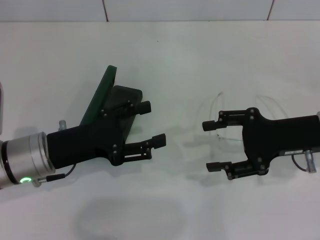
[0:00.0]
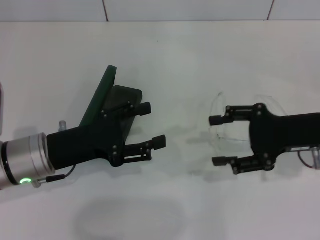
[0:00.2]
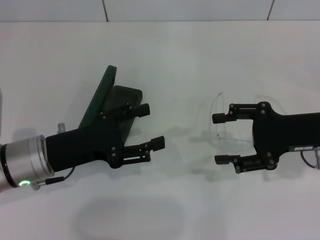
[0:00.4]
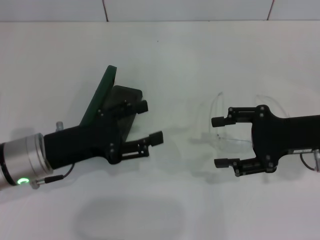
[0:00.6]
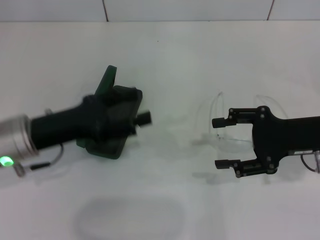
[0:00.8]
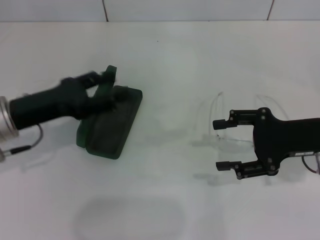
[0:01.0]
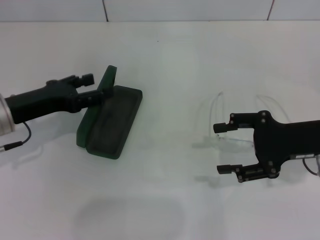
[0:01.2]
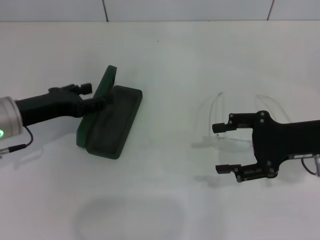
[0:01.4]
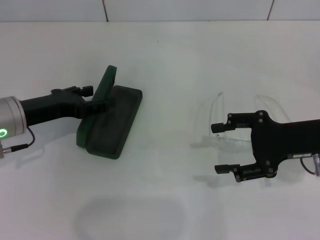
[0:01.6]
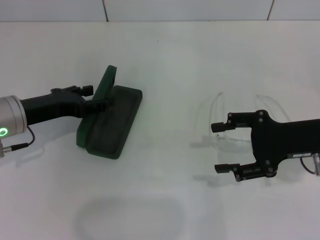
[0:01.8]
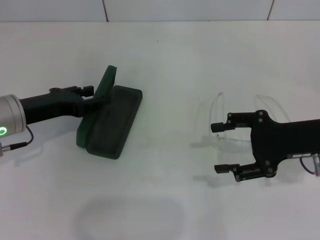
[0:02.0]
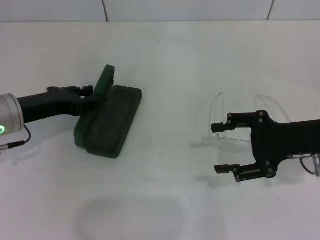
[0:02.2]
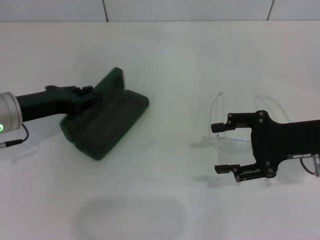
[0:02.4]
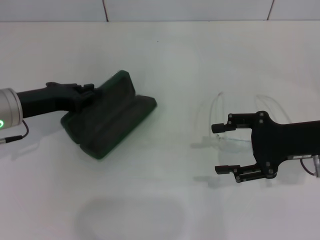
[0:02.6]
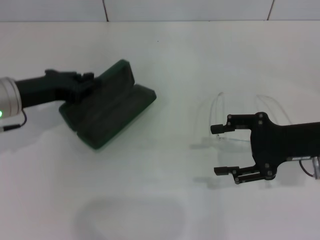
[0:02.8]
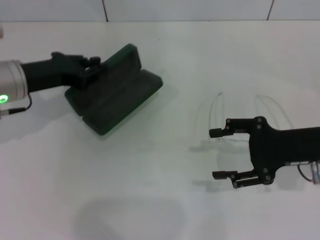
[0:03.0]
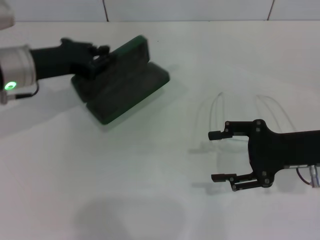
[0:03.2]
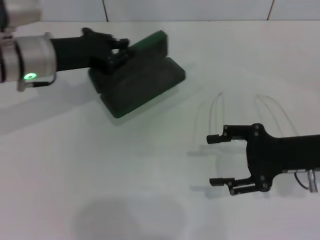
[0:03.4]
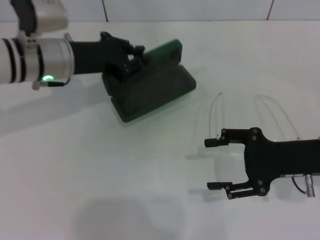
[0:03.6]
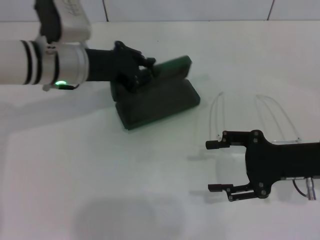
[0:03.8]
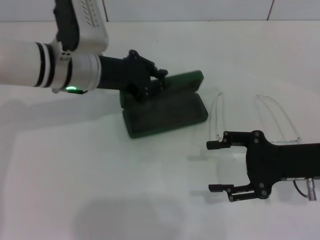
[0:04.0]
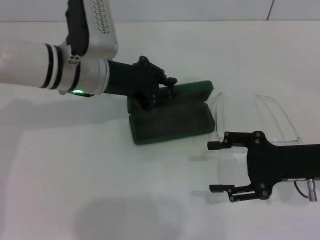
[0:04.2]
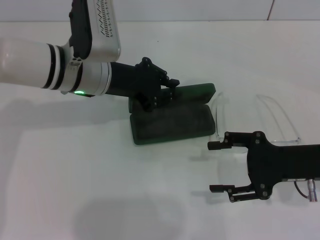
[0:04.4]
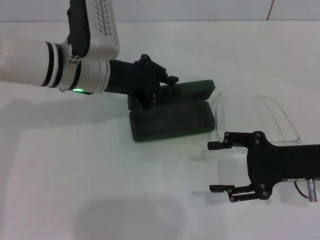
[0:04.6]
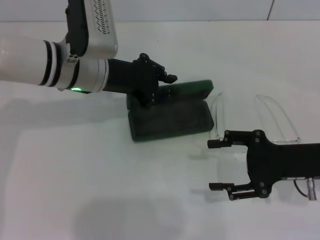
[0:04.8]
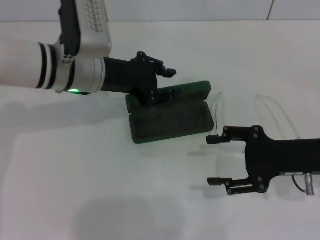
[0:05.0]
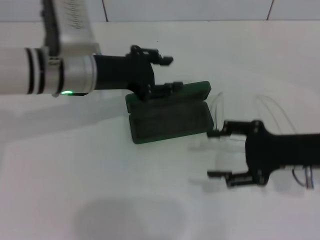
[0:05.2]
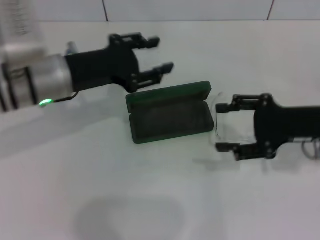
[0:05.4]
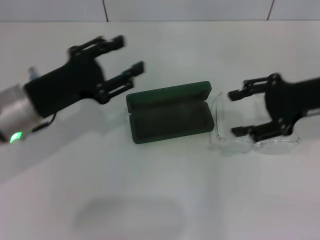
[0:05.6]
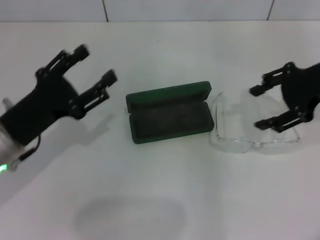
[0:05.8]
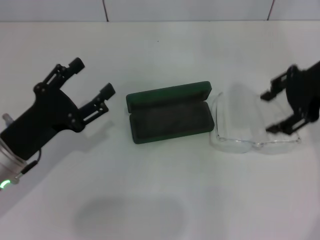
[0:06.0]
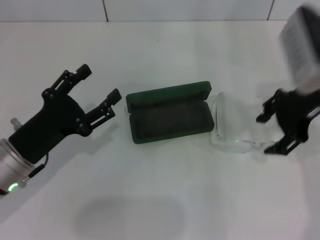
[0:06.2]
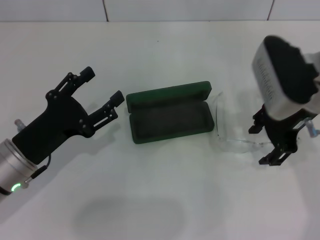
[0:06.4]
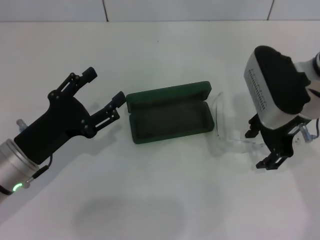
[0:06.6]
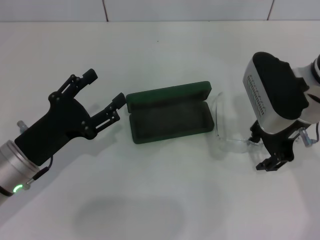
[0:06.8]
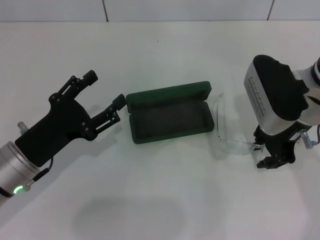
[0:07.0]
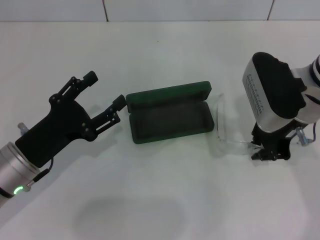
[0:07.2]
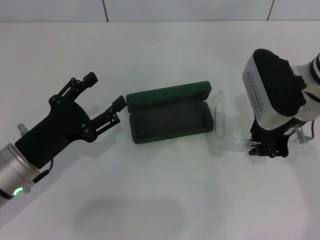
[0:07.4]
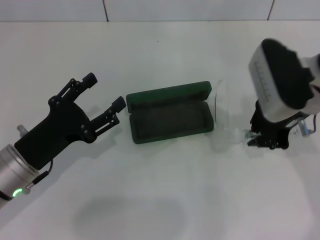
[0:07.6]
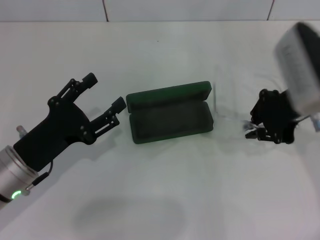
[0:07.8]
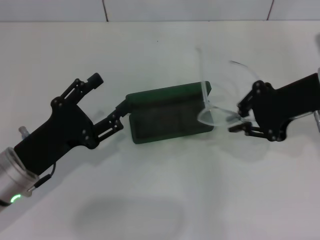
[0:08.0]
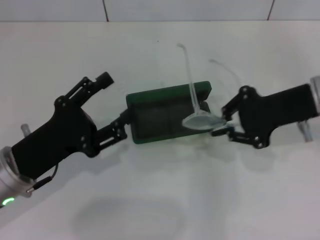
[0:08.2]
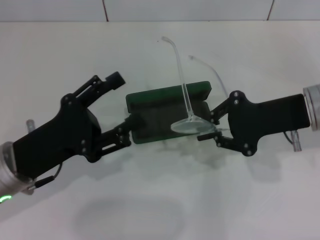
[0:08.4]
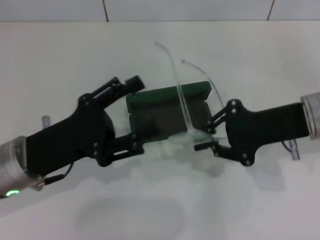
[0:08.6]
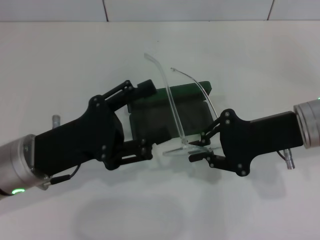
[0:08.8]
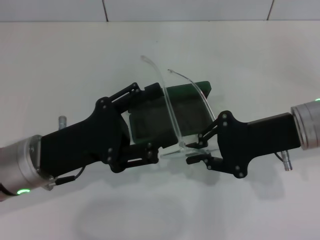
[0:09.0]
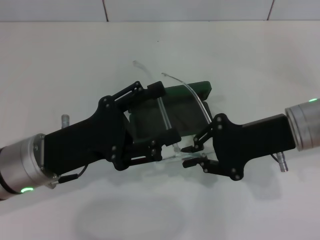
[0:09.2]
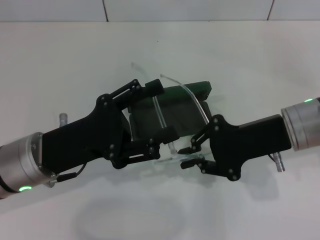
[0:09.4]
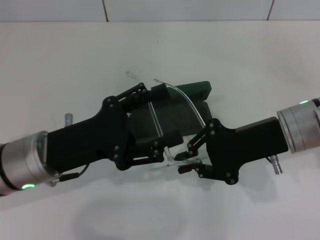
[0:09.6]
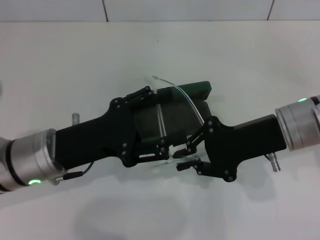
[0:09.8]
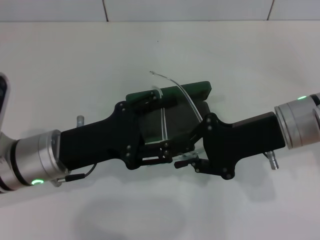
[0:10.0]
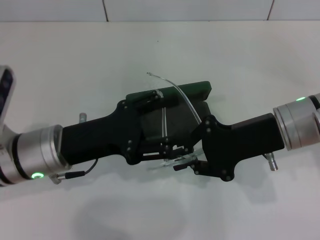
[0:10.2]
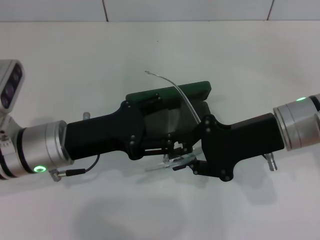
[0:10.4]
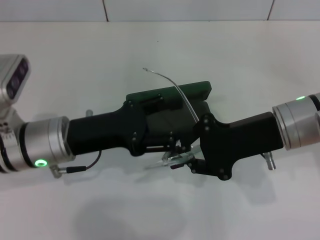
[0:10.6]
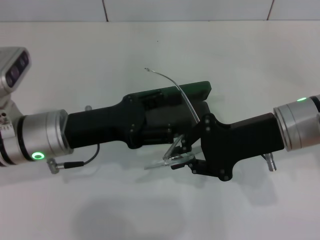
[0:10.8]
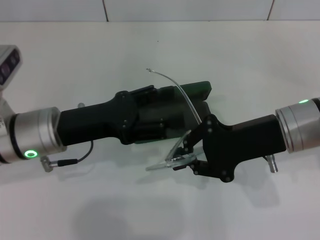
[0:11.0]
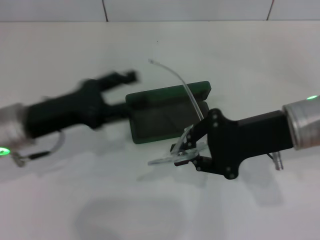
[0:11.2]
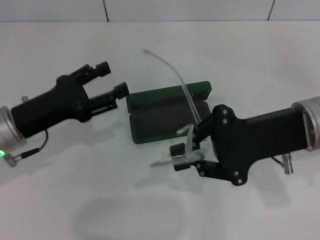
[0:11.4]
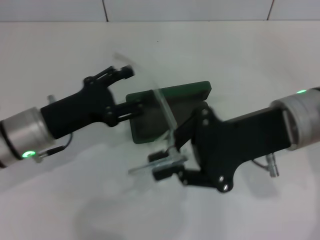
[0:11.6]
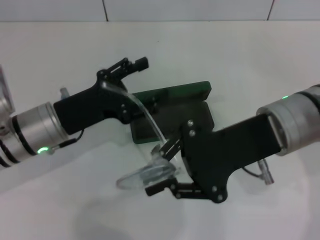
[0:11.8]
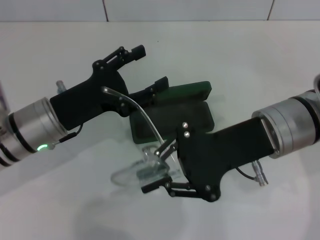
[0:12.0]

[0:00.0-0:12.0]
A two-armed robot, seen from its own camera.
Step, 0:00.0 to 0:02.4: Grab the glasses case with your left hand.
Step, 0:02.6 to 0:04.8: Place the glasses case in the center of the table with your left hand.
Step, 0:05.0 to 0:07.2: Grab the eyeglass frame with your right hand.
0:00.0 to 0:01.6: The left gripper shifts some 5 cm forward.
0:01.6 to 0:03.0: The left gripper moves roughly 5 cm, and closes its fingers.
0:03.0 to 0:04.4: The left gripper goes roughly 10 cm to the right.
0:04.4 to 0:06.0: The right gripper moves upward and forward, about 15 cm. Meanwhile the left gripper is displaced backward, to the left and downward by approximately 20 cm, and opens up.
0:06.0 to 0:07.6: The right gripper goes some 10 cm to the left and downward, and closes.
0:07.6 to 0:09.0: The left gripper moves roughly 5 cm, while the right gripper shifts by some 5 cm.
0:09.0 to 0:10.4: The grippers move only a little.

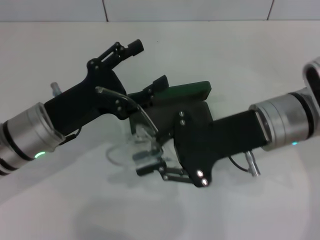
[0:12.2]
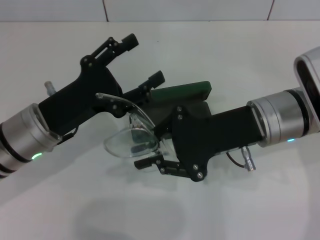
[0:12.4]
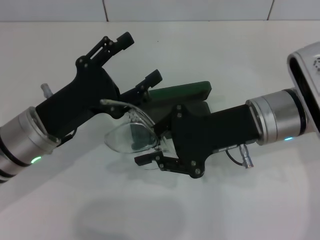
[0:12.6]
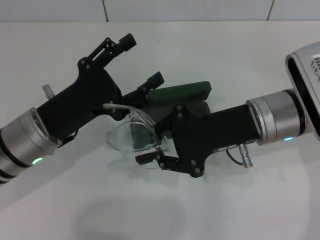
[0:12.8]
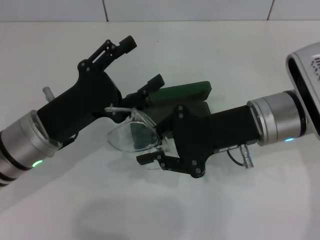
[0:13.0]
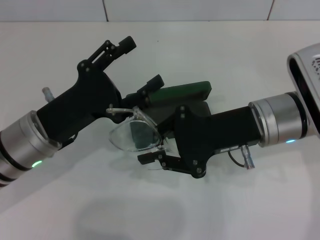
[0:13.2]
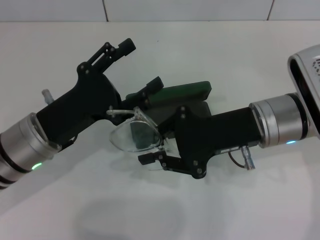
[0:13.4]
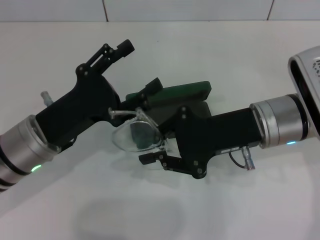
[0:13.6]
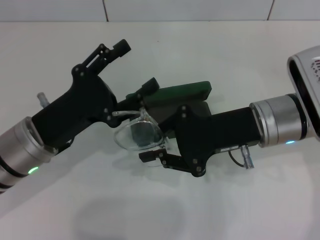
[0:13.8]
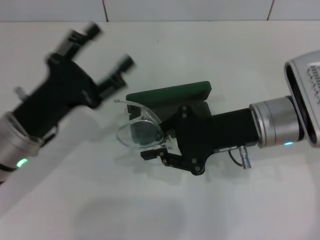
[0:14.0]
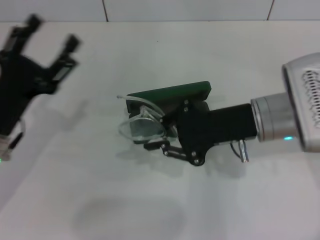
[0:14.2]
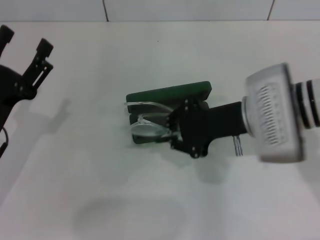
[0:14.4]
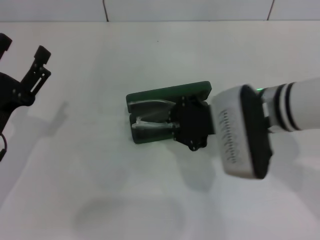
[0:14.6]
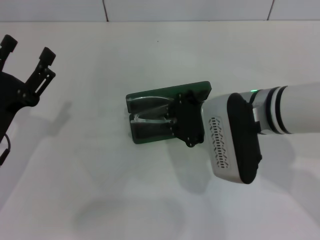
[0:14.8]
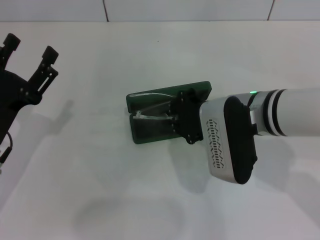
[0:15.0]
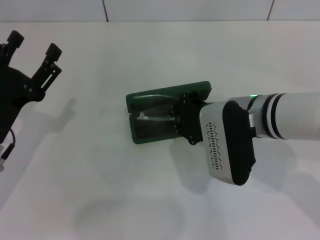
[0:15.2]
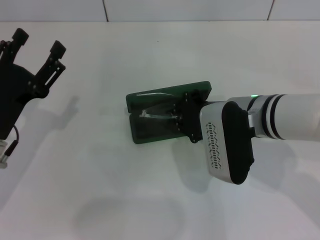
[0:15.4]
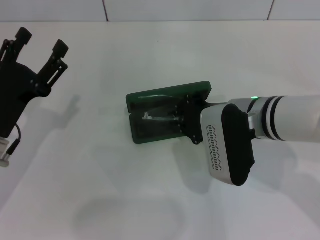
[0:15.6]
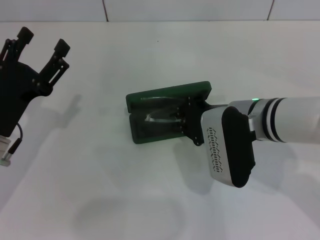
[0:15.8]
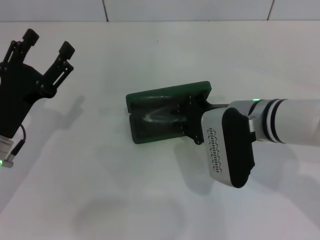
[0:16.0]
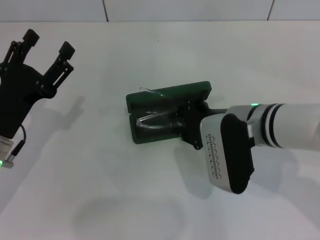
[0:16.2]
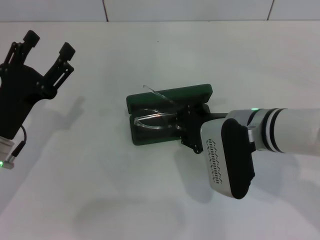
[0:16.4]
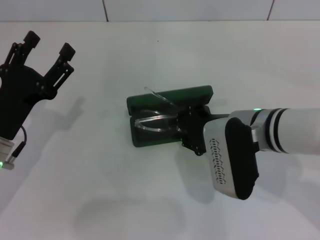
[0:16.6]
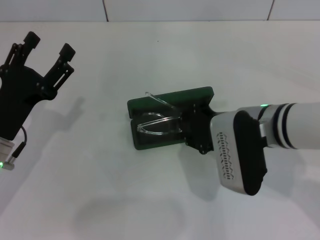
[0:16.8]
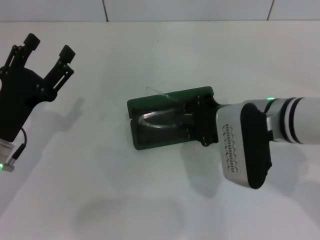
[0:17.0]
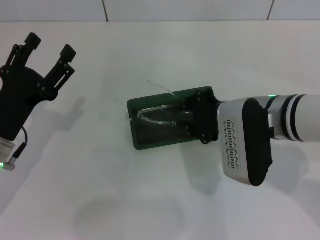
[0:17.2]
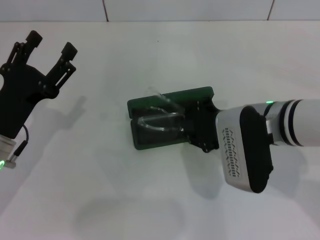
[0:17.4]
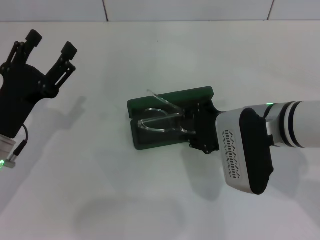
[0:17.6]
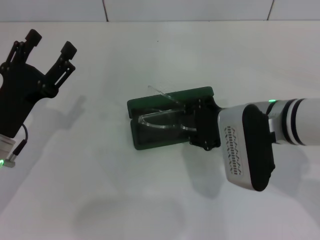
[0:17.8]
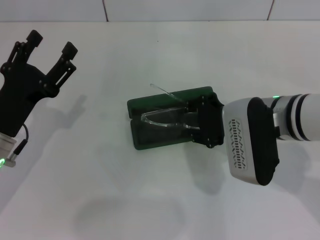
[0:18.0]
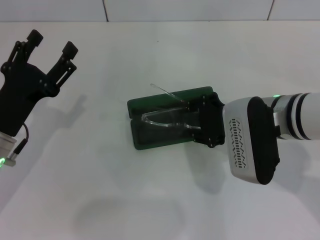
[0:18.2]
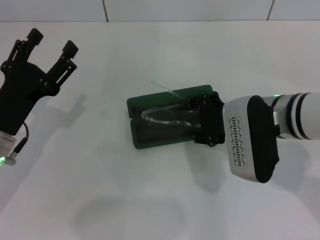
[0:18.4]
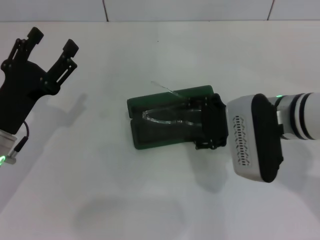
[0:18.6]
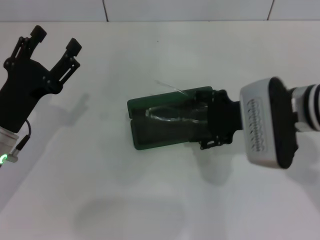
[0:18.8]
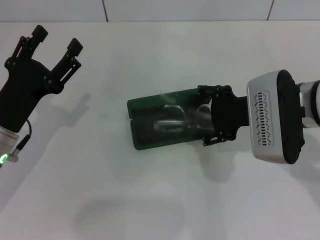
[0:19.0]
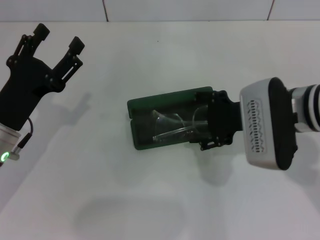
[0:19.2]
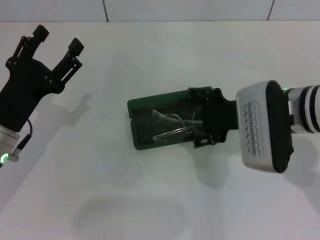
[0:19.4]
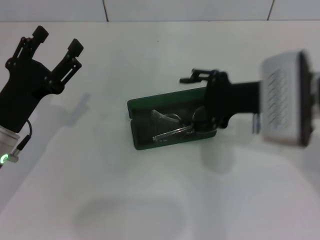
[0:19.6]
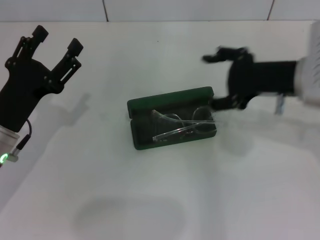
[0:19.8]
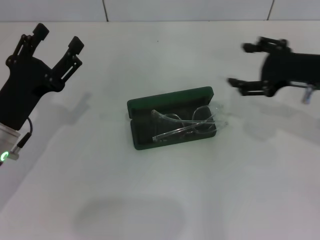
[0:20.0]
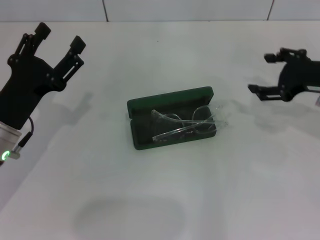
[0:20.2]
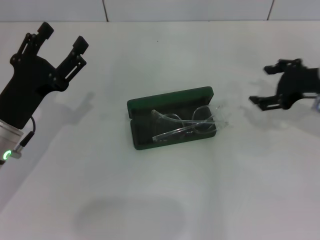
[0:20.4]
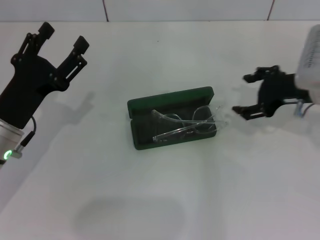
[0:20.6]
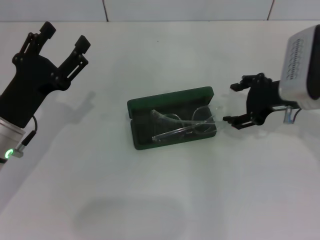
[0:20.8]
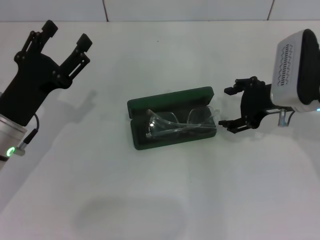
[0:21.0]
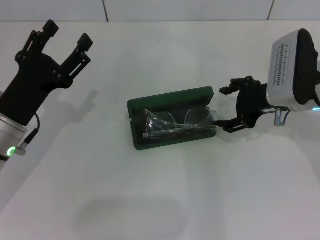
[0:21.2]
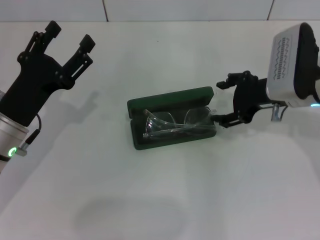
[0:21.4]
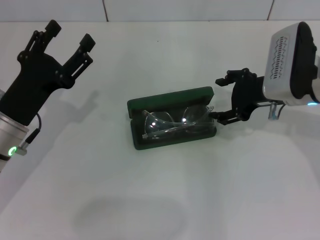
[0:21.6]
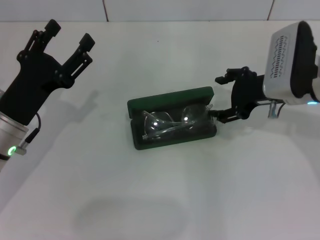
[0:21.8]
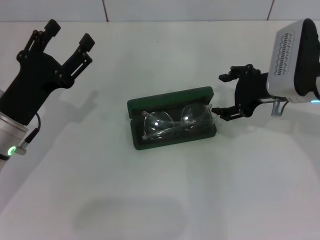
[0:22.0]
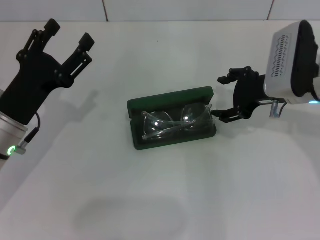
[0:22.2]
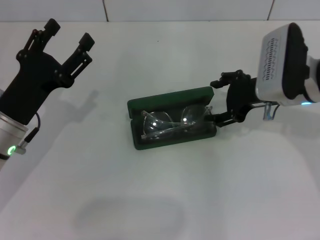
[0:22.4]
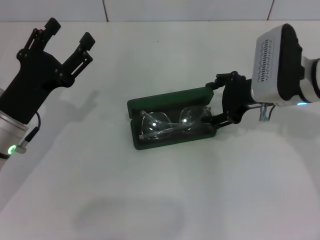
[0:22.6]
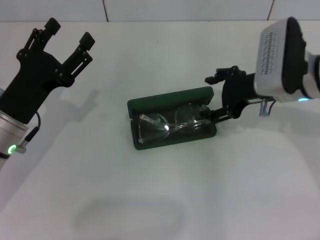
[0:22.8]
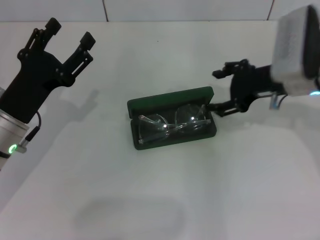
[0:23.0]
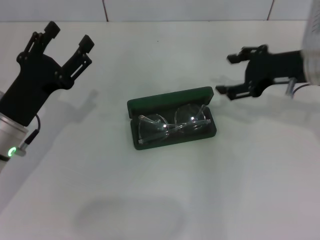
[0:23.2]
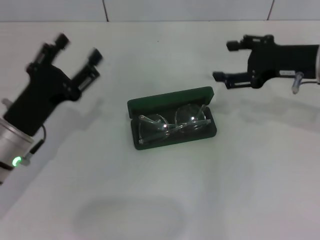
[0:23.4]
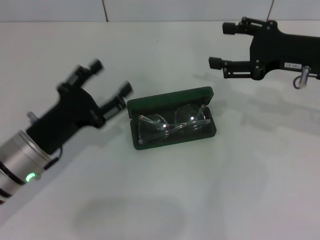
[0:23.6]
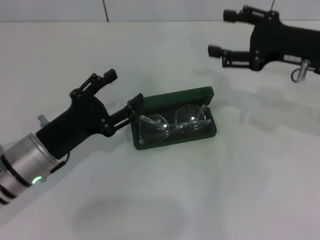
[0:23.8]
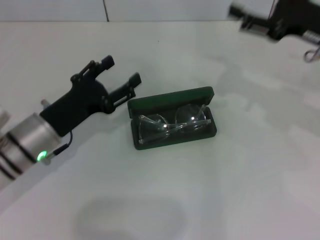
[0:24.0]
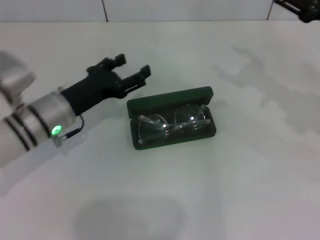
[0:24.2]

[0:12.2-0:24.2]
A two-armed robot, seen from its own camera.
0:12.2 to 0:13.8: There are only small adjustments of the grippers.
0:13.8 to 0:15.2: The left gripper travels to the left by about 5 cm.
0:15.2 to 0:18.2: There are only small adjustments of the grippers.
0:18.2 to 0:19.8: The right gripper moves to the right, about 5 cm, and opens.
0:21.2 to 0:22.6: The grippers move only a little.
0:22.6 to 0:24.2: The right gripper moves to the right, about 10 cm. Meanwhile the left gripper shifts roughly 5 cm forward.
